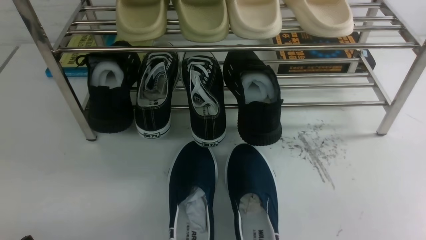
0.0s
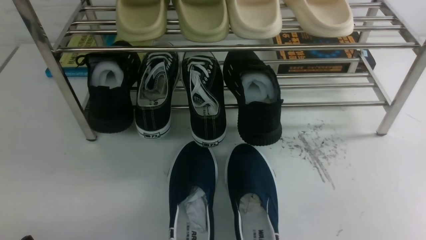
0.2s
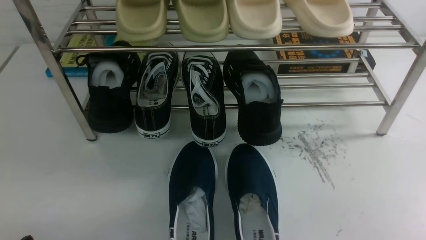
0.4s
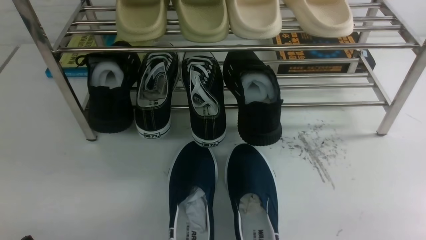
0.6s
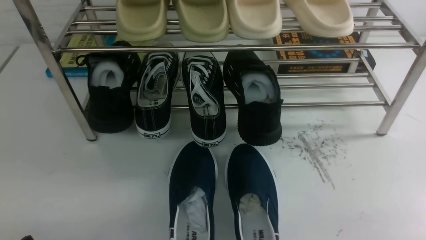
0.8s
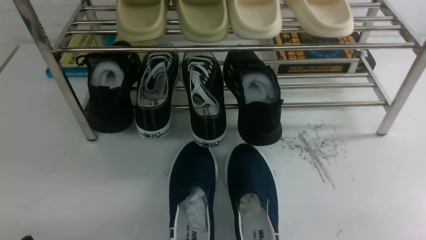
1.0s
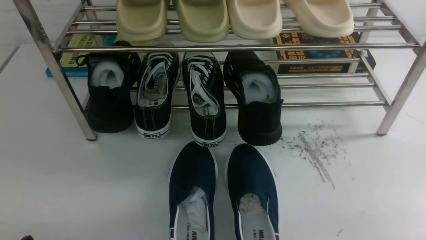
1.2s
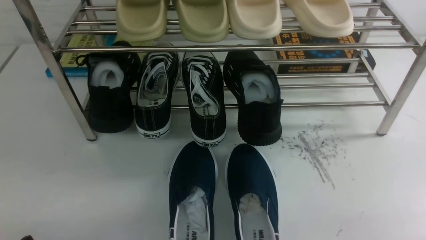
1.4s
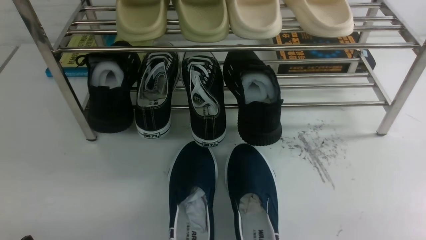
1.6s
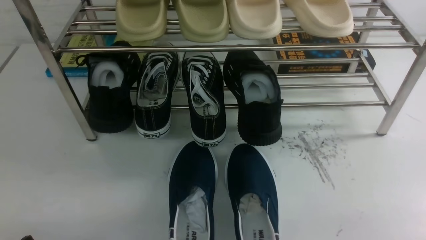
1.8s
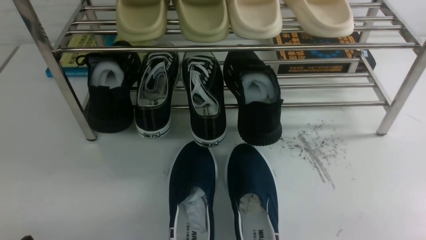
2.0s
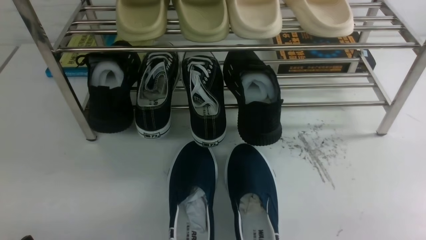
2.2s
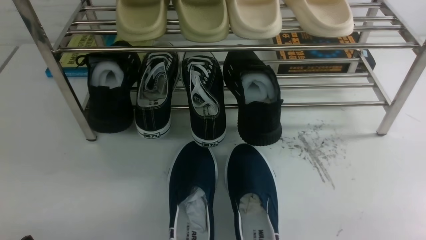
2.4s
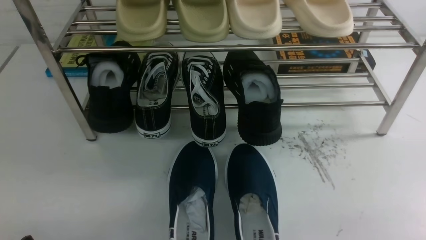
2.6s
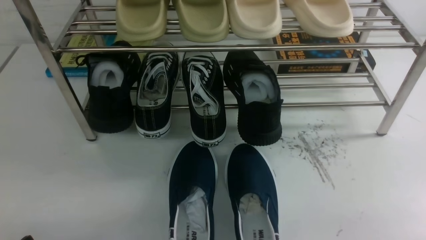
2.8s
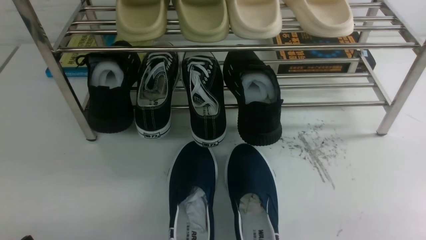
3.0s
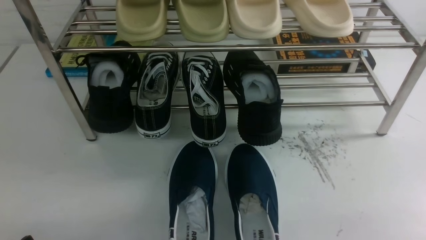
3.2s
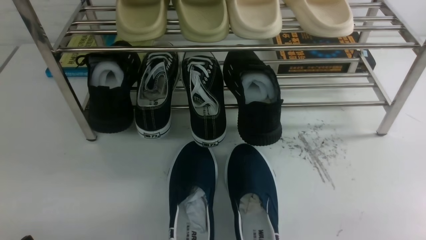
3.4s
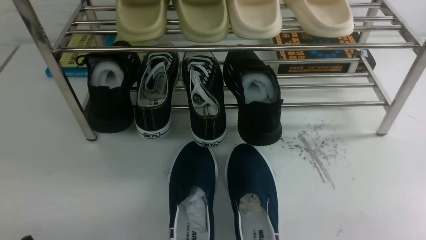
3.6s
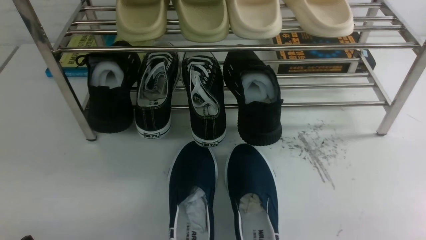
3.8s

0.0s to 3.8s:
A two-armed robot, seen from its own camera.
1.2s to 3.8s: Both grippers stay about where they are.

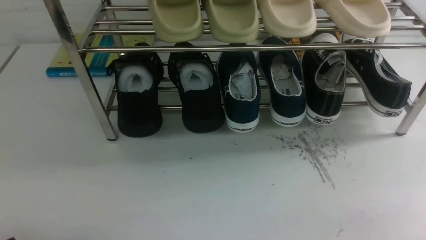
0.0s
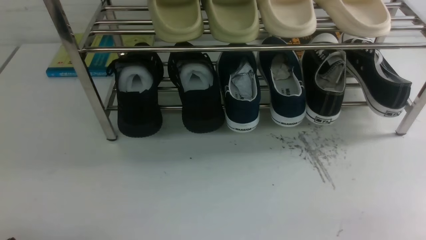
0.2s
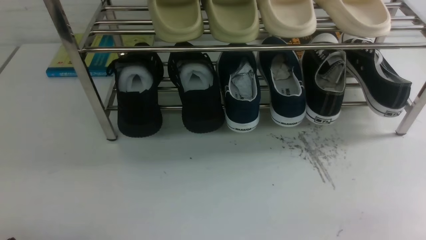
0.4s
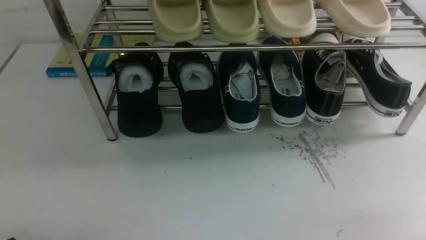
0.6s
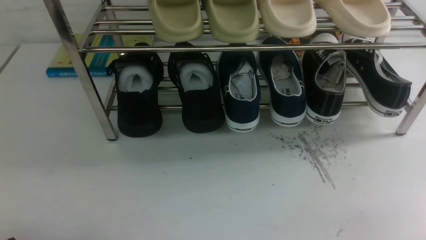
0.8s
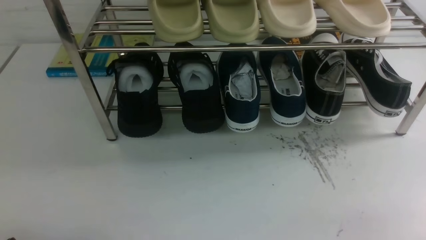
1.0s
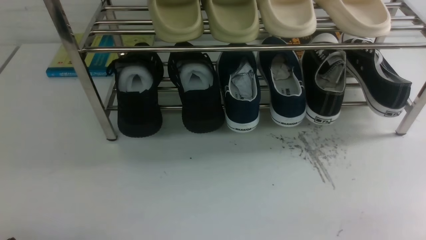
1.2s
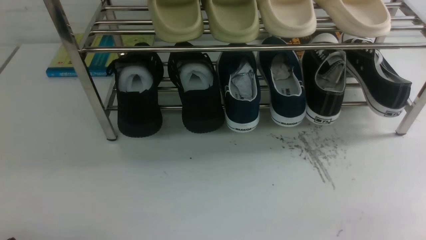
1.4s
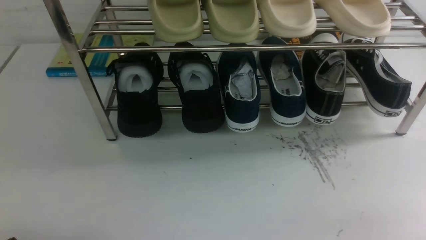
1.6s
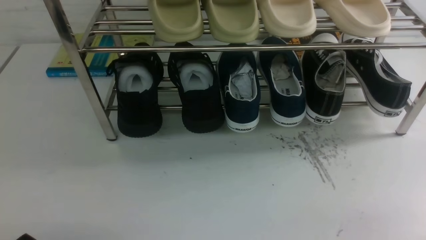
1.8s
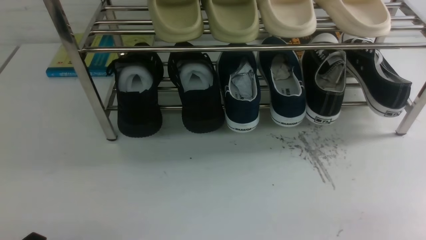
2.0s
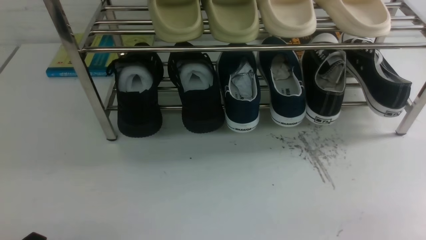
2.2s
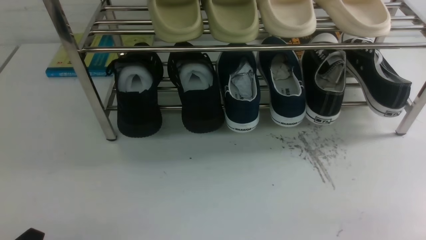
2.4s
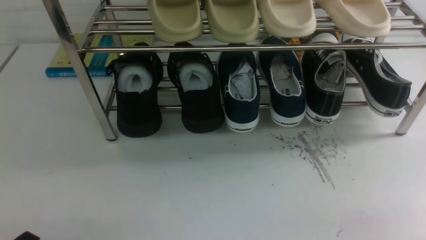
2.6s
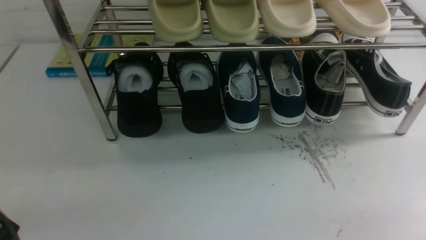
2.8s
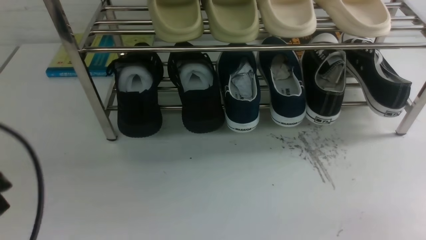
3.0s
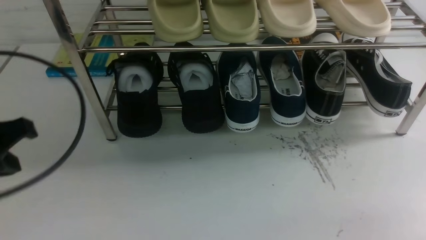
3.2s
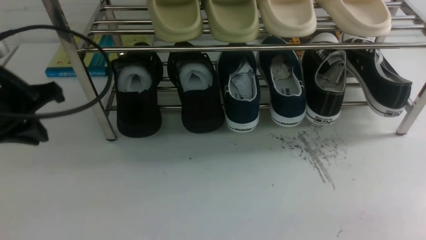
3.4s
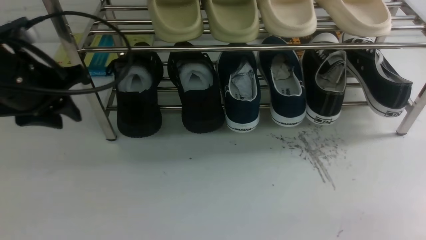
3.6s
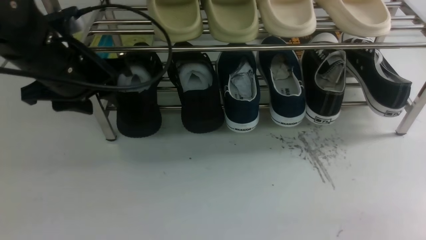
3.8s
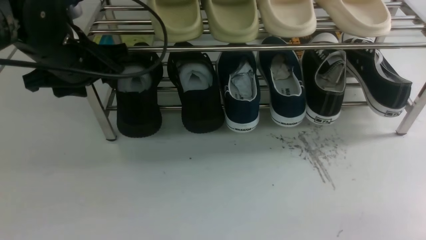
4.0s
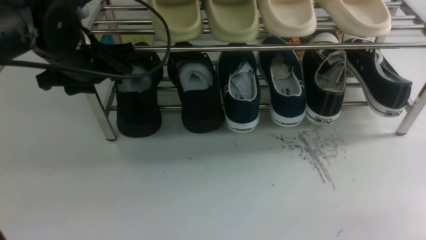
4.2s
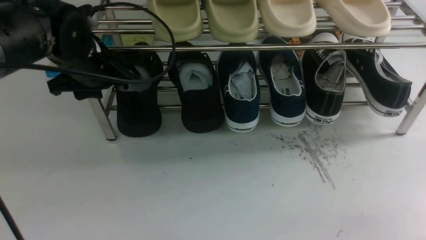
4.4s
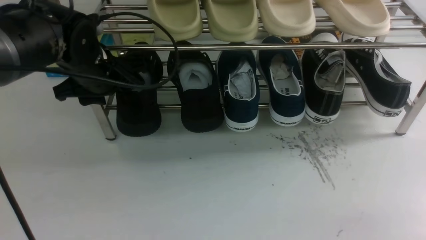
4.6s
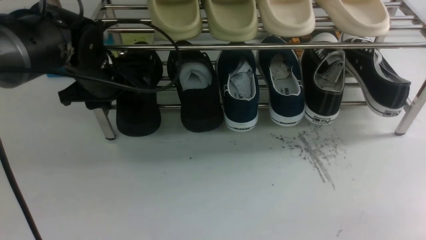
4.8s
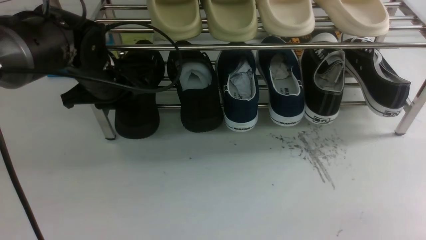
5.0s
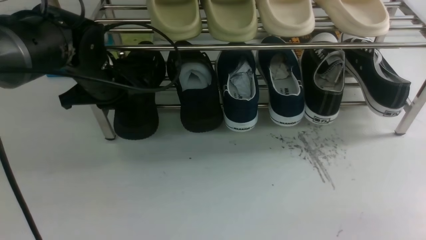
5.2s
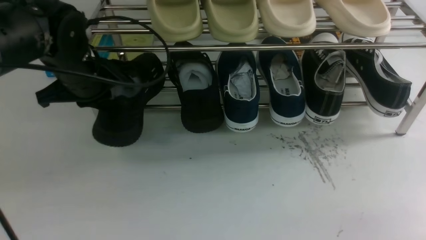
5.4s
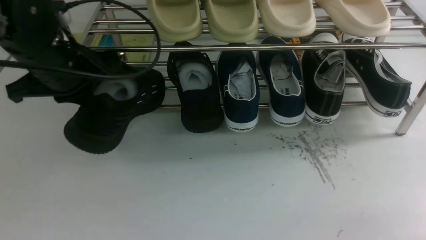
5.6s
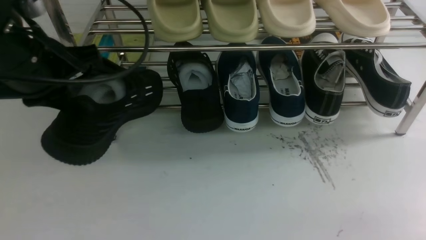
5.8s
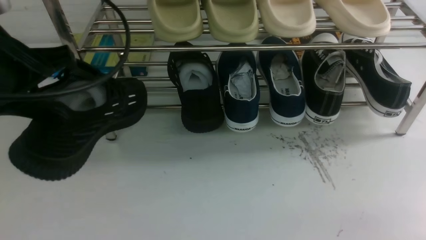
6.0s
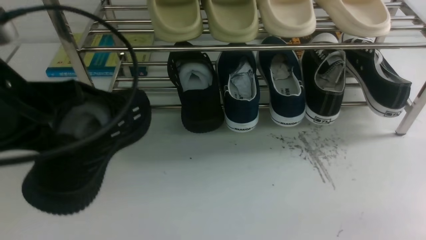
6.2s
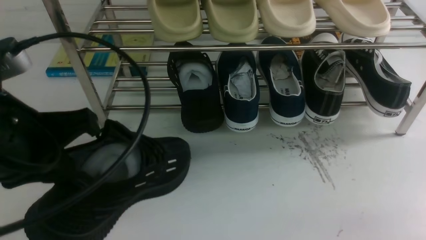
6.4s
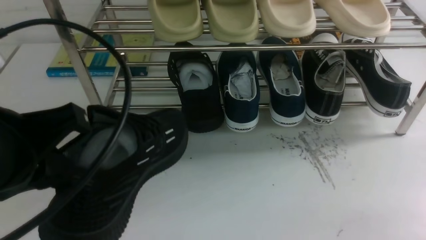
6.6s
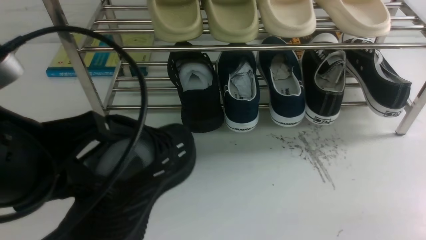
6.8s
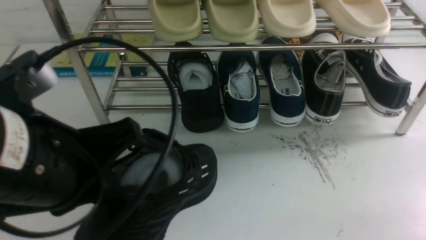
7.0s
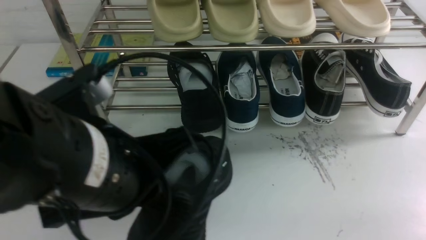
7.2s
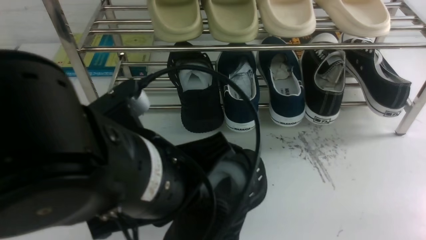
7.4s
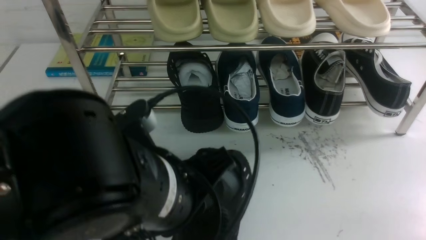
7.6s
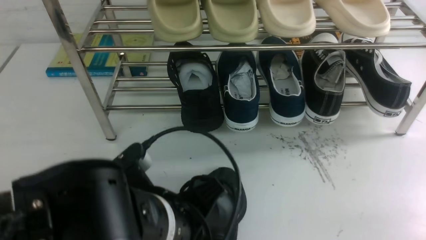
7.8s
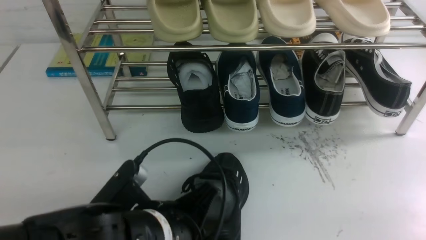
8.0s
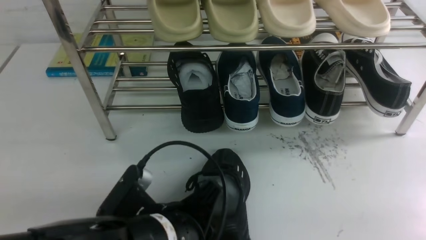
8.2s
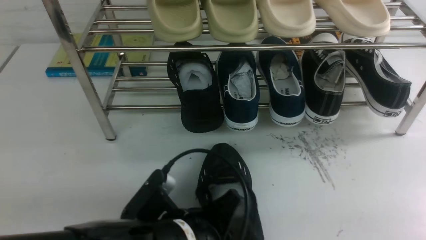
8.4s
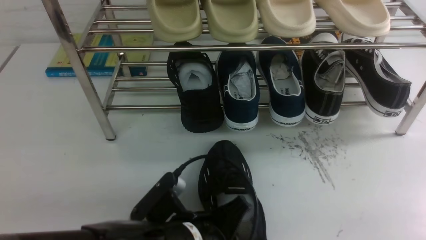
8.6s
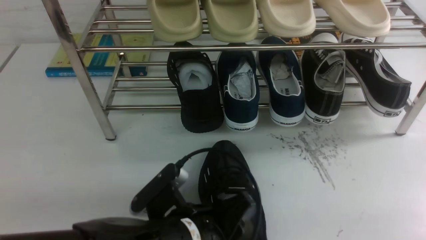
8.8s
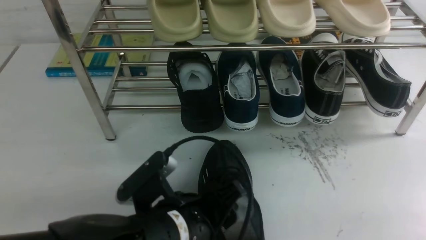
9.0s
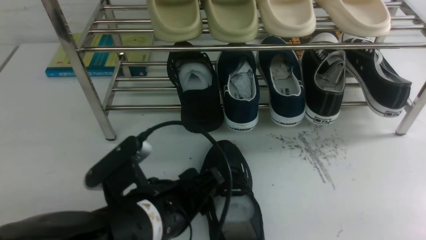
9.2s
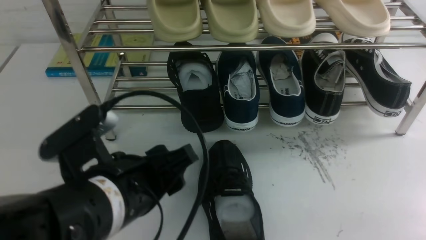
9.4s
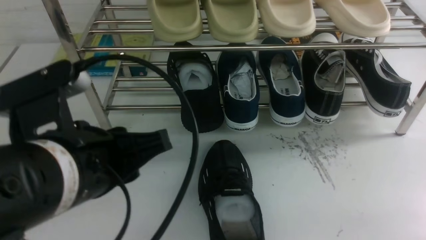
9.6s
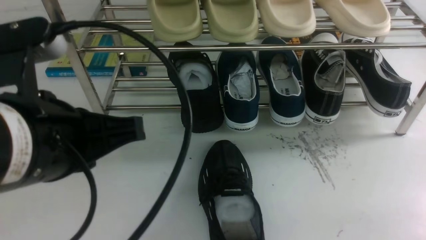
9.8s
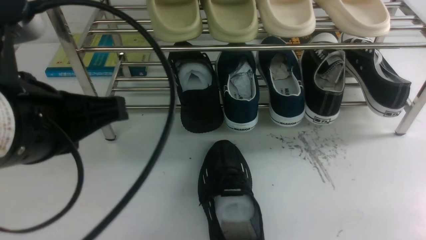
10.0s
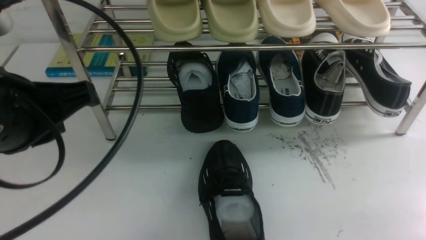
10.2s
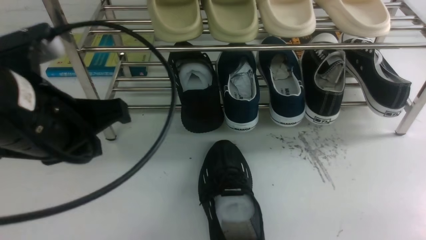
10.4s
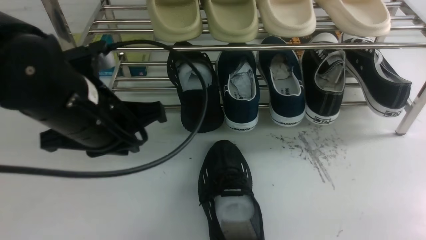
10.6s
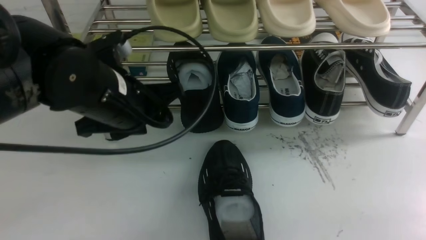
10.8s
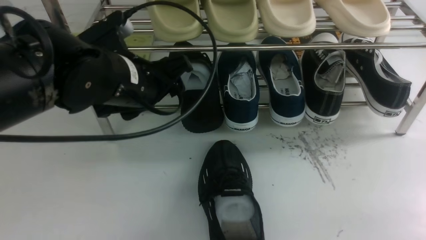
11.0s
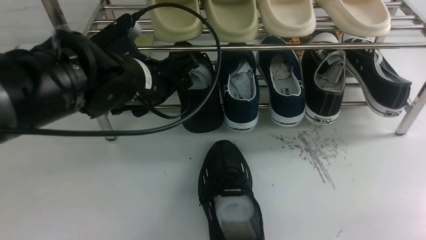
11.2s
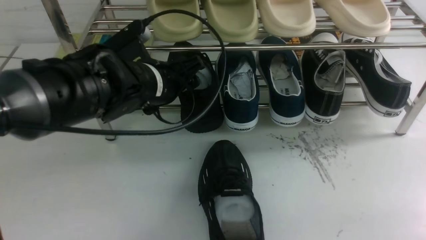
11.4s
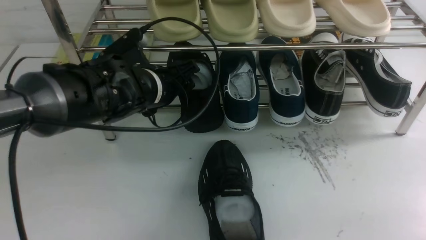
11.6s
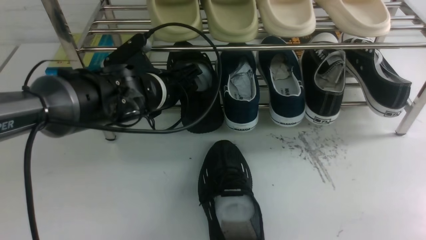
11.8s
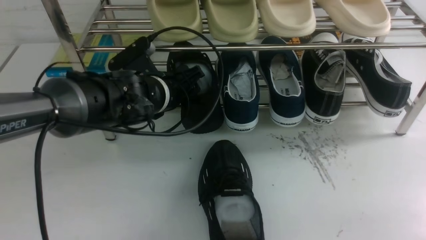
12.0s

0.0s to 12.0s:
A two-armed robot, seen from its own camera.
Step, 0.0s to 5.4s: use the left arm to clamp a shoe on the left side of the shoe rack.
Step, 5.6s to 9.2s: Use your left arm to remove the clamped shoe from the shoe rack and put it down.
1.6s to 3.0s: The left gripper moves upward and forward, about 15 cm, and closes.
3.0s to 4.4s: The left gripper shifts about 25 cm forward, and opens.
4.4s to 6.0s: The left gripper heads backward and upward, covering approximately 15 cm, and closes.
6.0s to 7.6s: The left gripper is displaced to the right, backward and downward by about 20 cm.
7.6s to 9.0s: The left gripper moves downward, roughly 10 cm, and opens up.
9.0s to 10.4s: The left gripper goes roughly 15 cm upward, to the left and forward, and closes up.
10.4s to 12.0s: The left gripper is displaced forward, downward and to the right by approximately 20 cm, and opens its fingers.

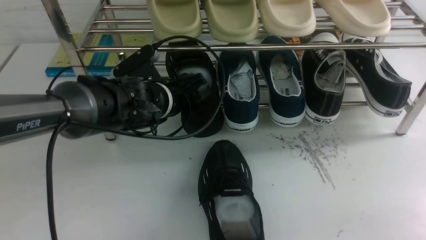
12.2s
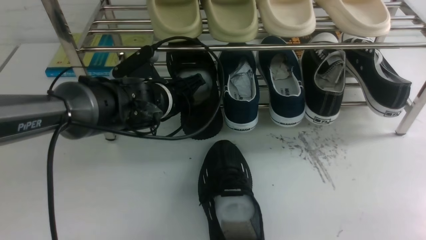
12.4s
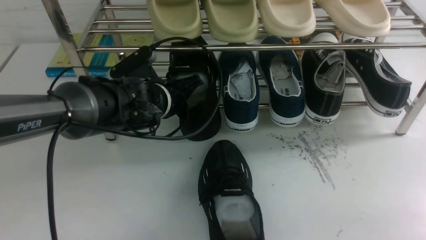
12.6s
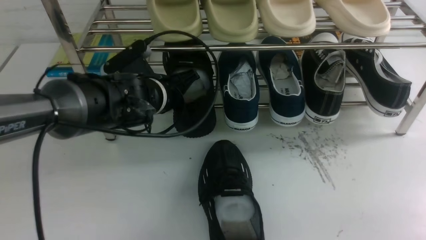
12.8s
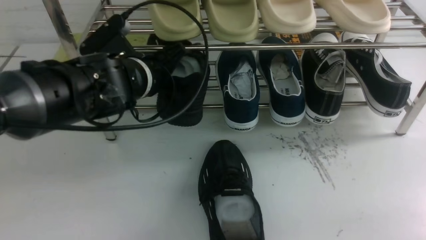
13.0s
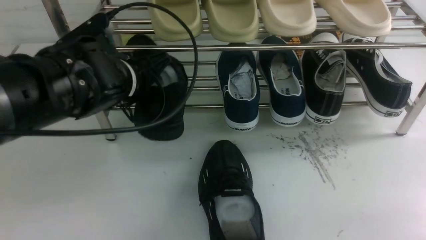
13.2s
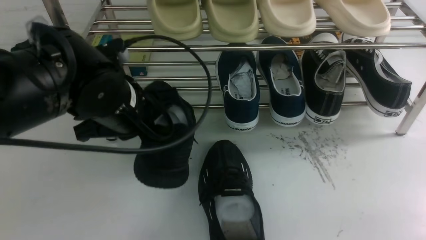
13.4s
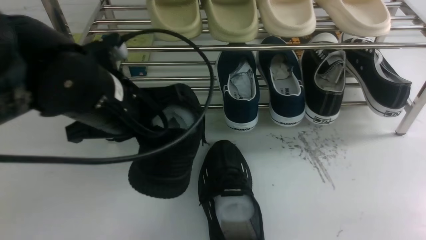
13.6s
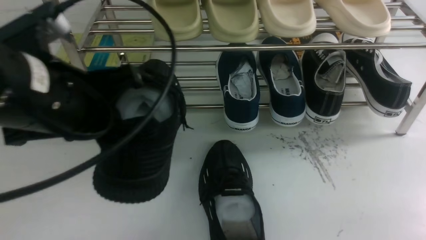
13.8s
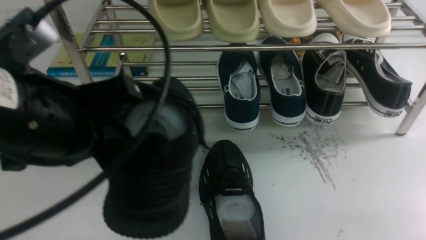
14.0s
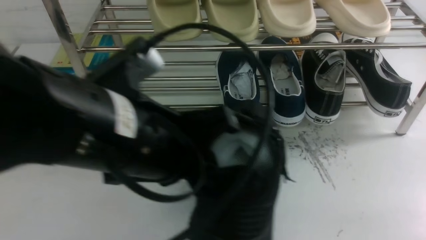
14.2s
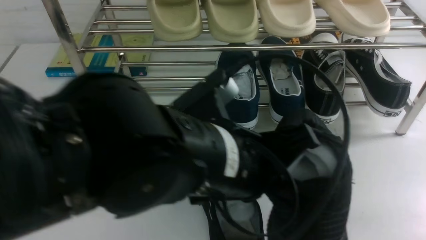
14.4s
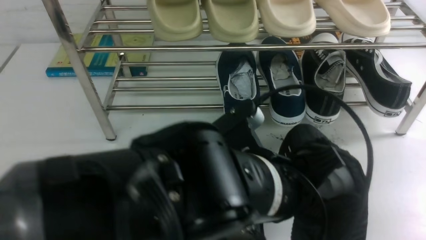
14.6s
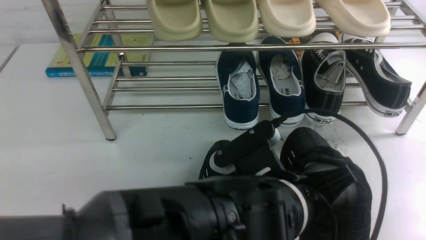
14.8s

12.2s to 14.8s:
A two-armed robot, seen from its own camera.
12.2s to 13.4s: The left gripper moves upward and backward, approximately 10 cm, and closes its fingers.
13.4s to 14.8s: The left gripper heads to the right and backward, covering some 20 cm.
